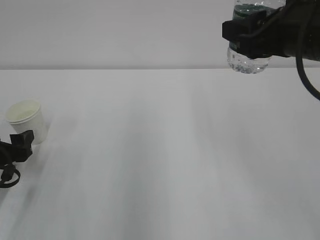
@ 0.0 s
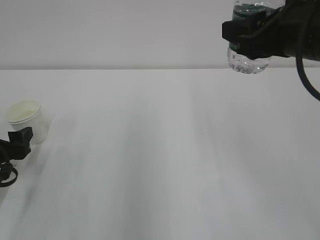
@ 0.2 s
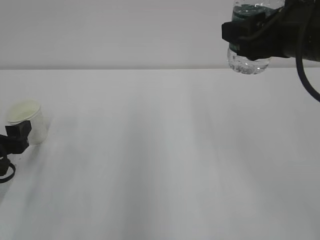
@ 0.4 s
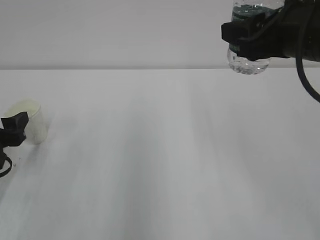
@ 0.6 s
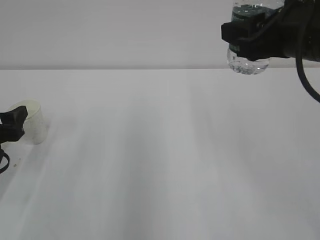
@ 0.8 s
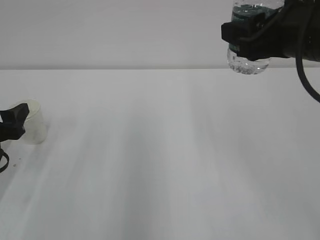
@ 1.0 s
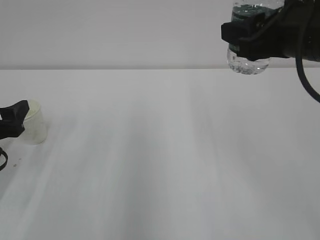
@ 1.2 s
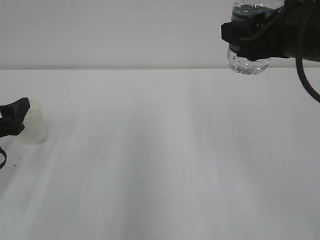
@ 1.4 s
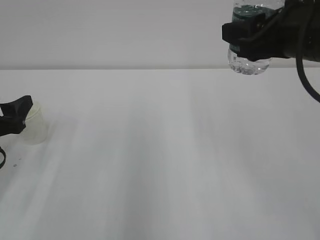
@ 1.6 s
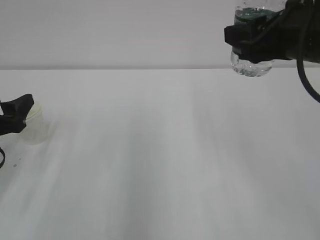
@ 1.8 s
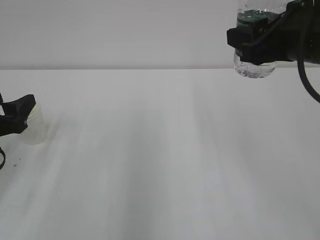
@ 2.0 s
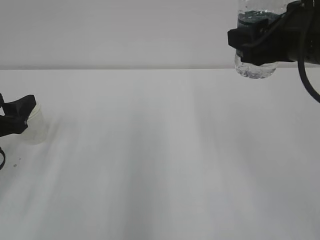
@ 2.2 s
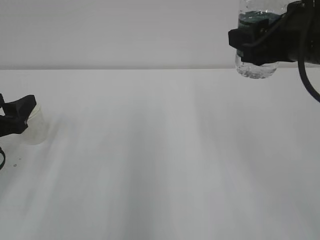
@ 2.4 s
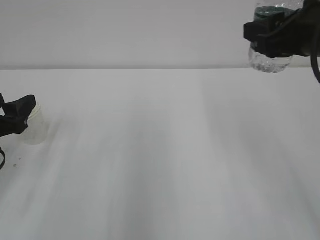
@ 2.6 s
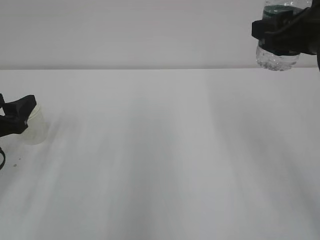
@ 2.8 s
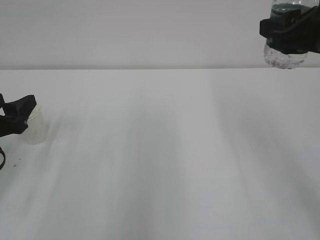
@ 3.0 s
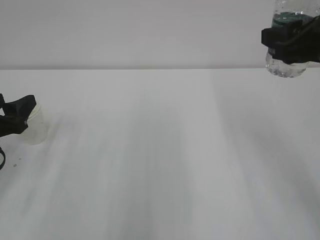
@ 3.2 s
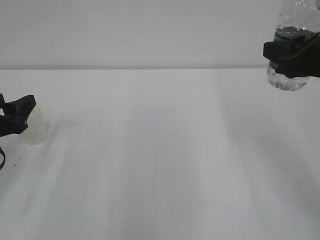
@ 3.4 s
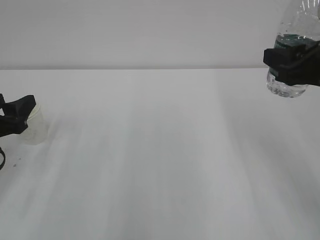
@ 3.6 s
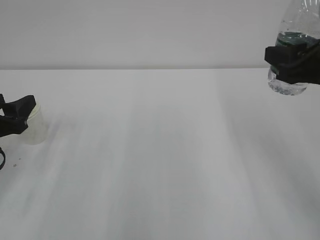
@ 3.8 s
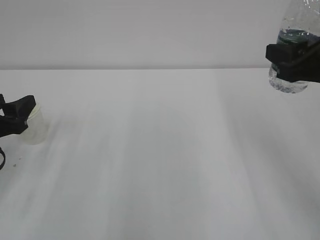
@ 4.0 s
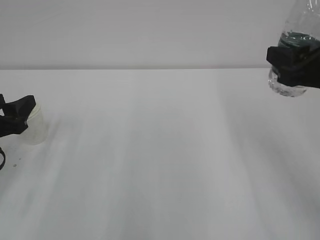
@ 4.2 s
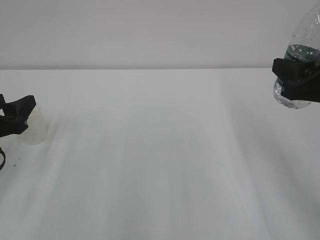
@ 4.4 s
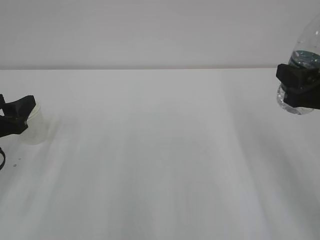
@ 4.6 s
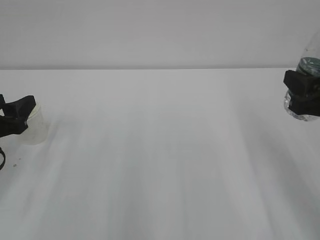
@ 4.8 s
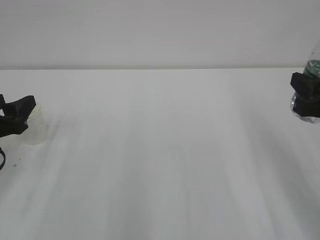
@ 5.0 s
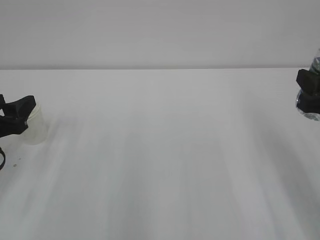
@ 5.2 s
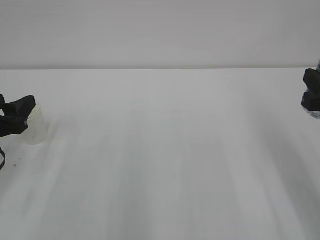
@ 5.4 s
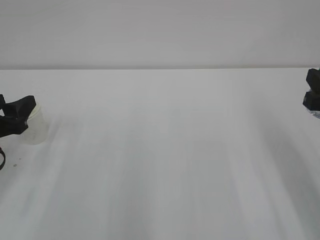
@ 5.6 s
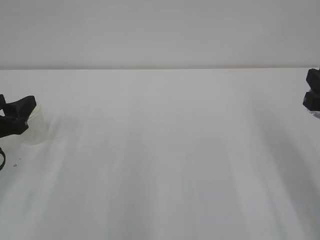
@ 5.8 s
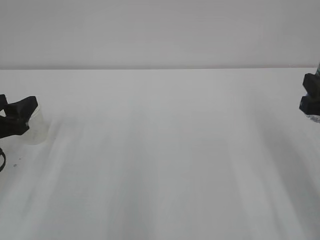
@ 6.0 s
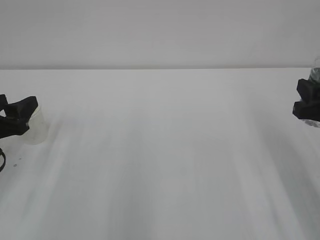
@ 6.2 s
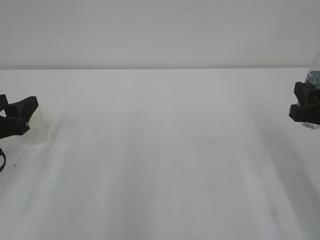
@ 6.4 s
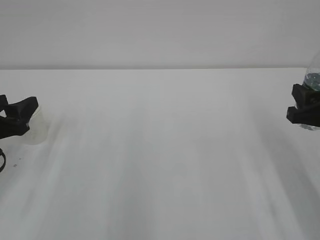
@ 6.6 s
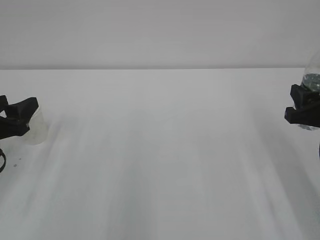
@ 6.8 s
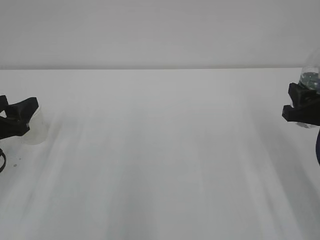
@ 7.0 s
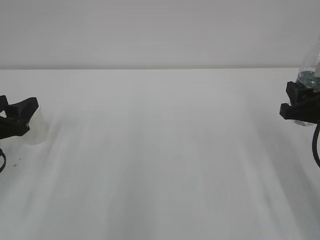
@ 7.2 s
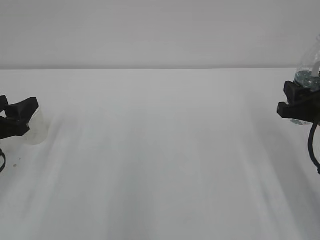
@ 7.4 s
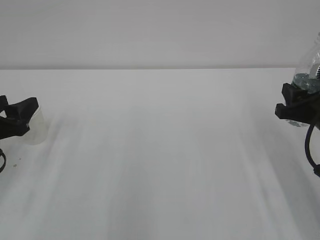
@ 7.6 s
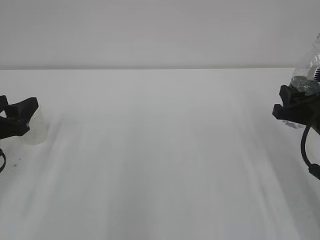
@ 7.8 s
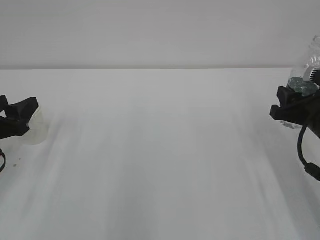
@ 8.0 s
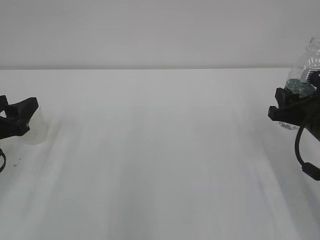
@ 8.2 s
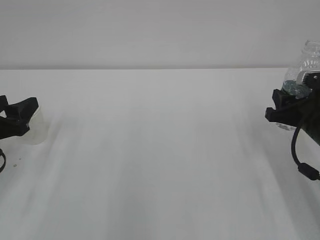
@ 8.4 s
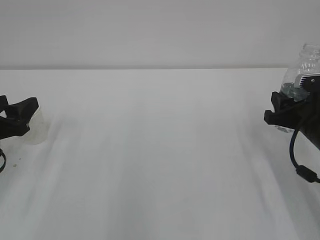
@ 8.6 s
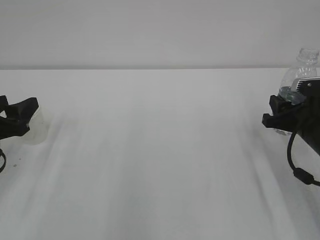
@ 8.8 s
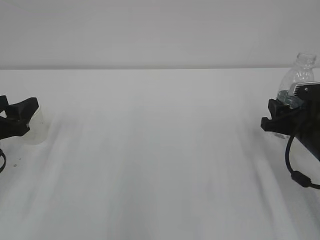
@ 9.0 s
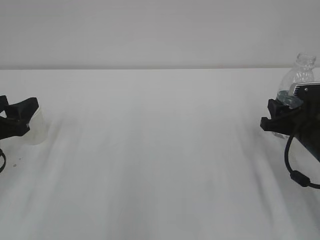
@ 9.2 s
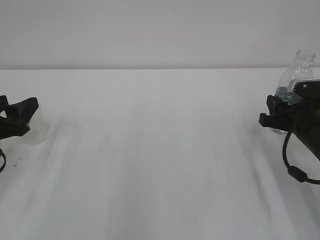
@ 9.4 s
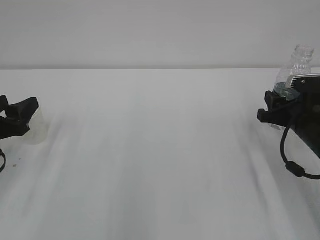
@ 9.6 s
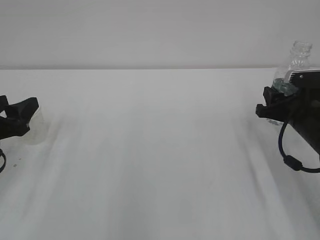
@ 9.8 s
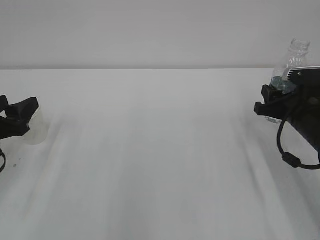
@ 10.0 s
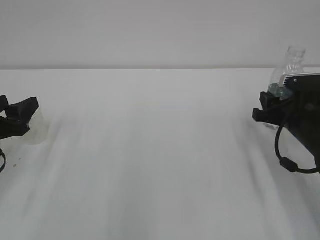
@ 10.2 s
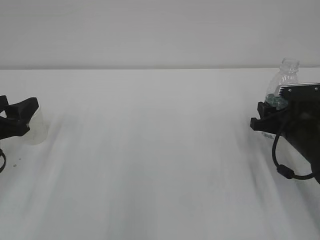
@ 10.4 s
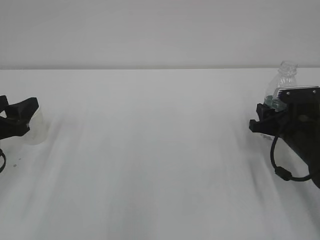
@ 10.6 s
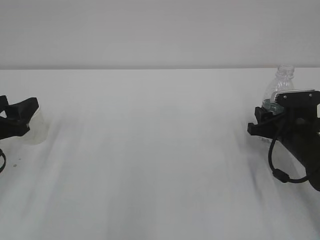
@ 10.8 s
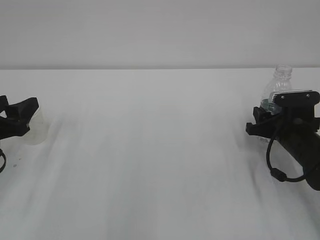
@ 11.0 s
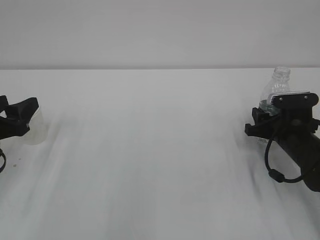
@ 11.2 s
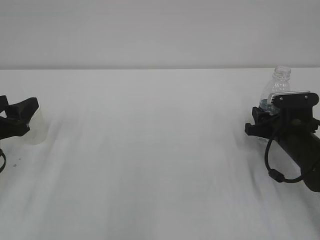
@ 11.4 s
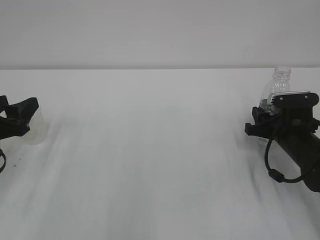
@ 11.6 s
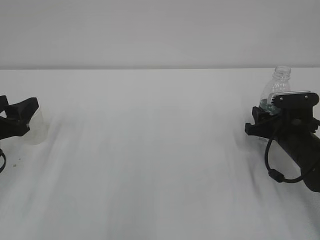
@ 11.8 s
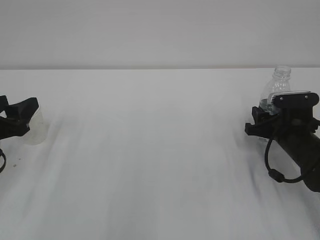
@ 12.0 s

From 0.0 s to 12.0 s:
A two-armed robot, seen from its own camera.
From 0.0 s to 1.6 s: The left gripper heads upward, covering some 5 cm.
From 1.6 s to 3.0 s: The grippers move only a little.
From 3.0 s to 4.4 s: The right gripper shifts roughly 5 cm downward.
From 4.4 s to 6.0 s: The grippers move only a little.
From 6.0 s to 7.6 s: The right gripper shifts about 5 cm downward.
From 7.6 s to 9.0 s: The right gripper changes place by approximately 5 cm.
From 9.0 s to 12.0 s: There are only small adjustments of the grippers.

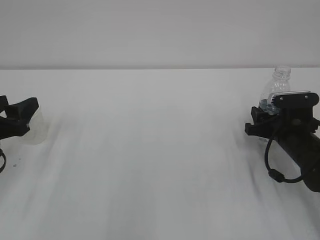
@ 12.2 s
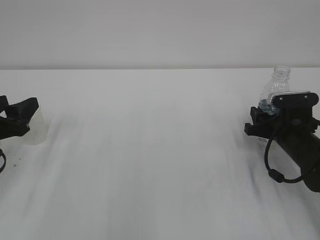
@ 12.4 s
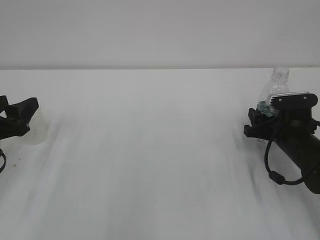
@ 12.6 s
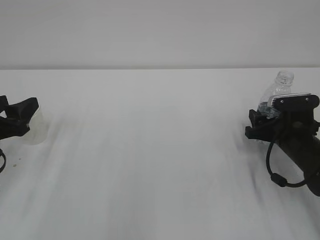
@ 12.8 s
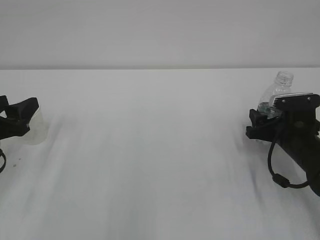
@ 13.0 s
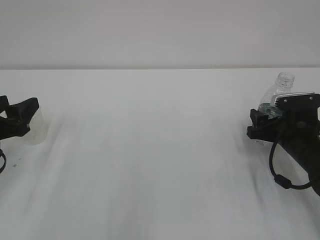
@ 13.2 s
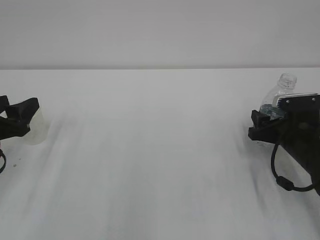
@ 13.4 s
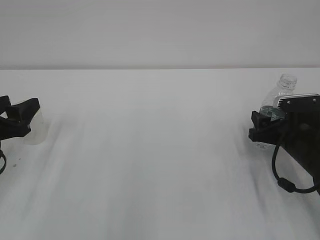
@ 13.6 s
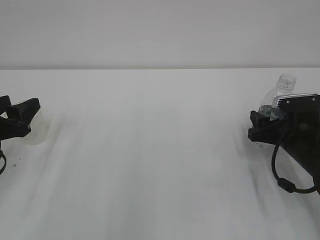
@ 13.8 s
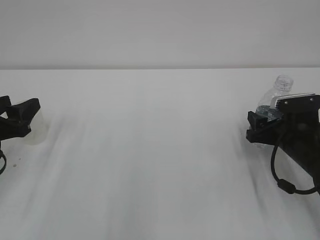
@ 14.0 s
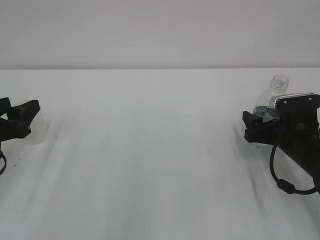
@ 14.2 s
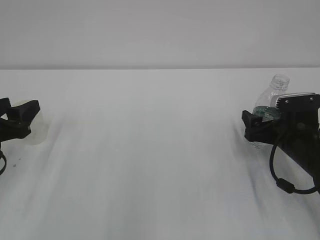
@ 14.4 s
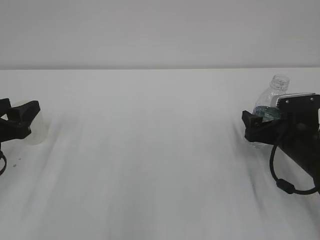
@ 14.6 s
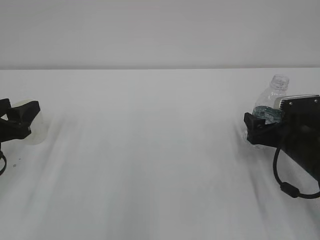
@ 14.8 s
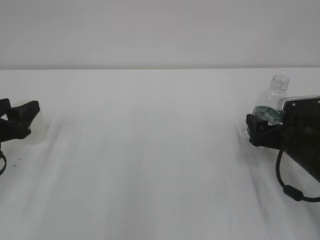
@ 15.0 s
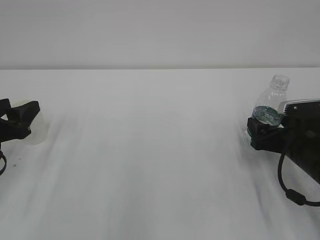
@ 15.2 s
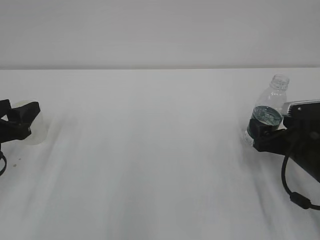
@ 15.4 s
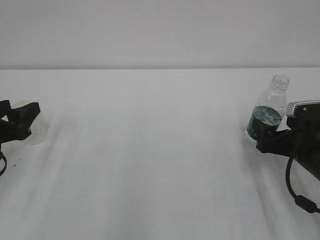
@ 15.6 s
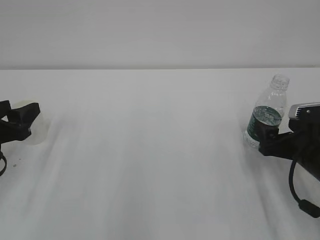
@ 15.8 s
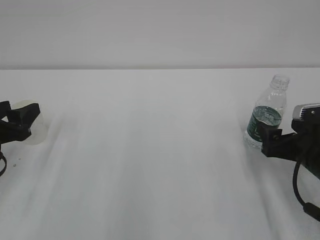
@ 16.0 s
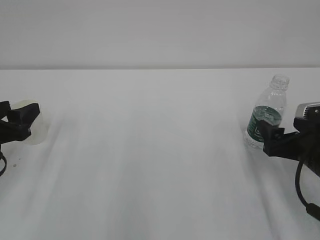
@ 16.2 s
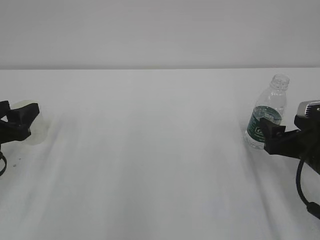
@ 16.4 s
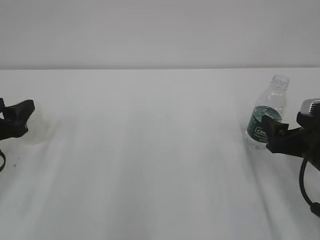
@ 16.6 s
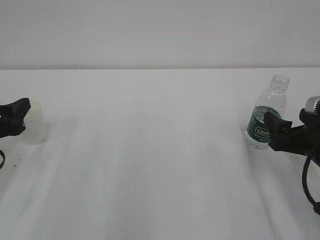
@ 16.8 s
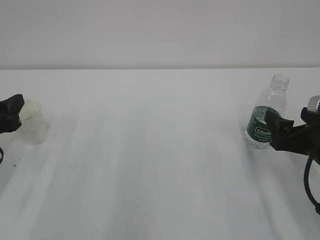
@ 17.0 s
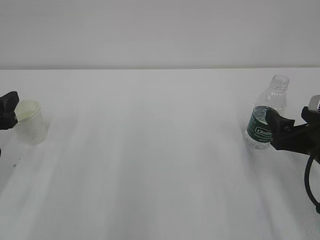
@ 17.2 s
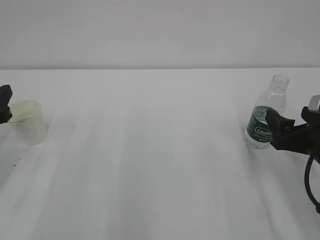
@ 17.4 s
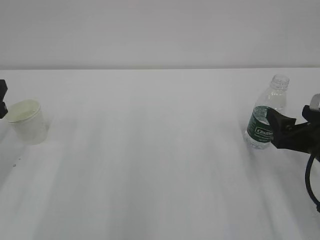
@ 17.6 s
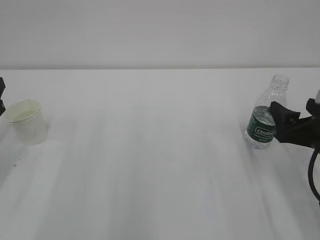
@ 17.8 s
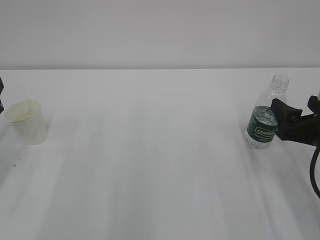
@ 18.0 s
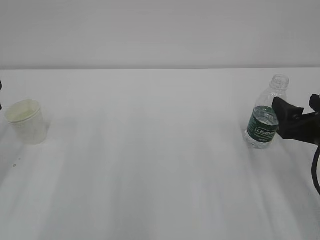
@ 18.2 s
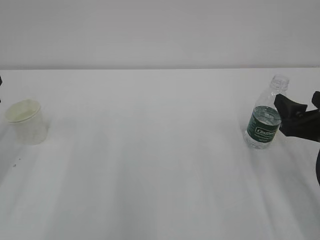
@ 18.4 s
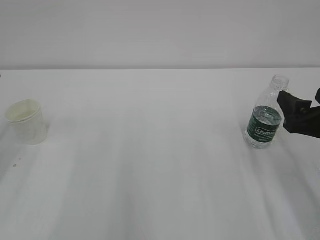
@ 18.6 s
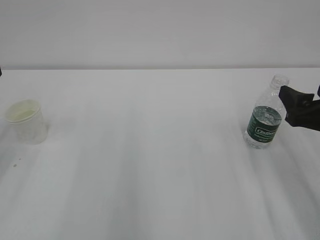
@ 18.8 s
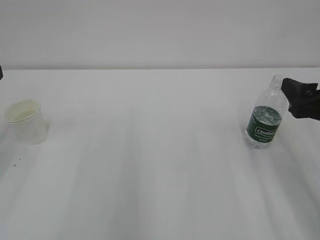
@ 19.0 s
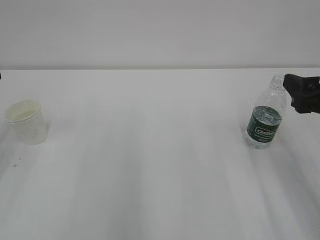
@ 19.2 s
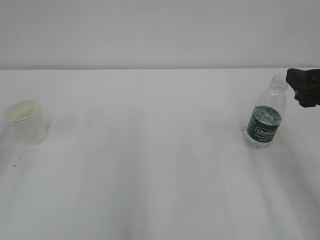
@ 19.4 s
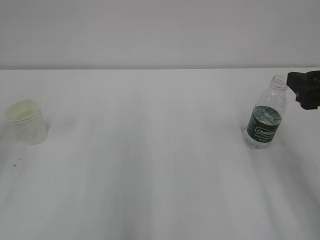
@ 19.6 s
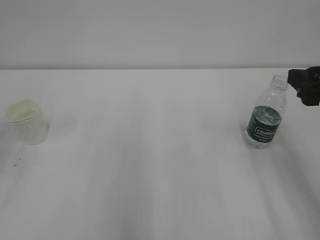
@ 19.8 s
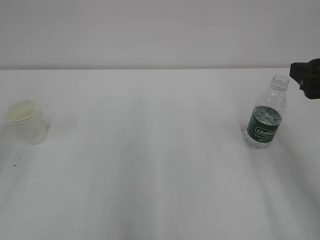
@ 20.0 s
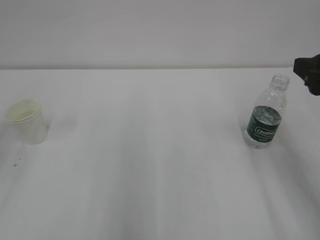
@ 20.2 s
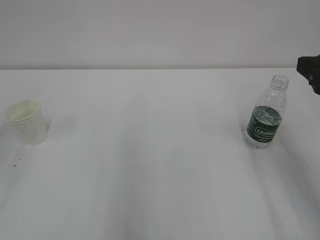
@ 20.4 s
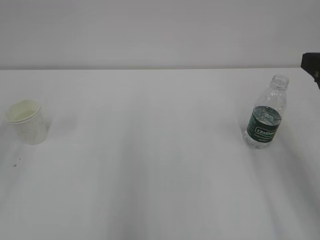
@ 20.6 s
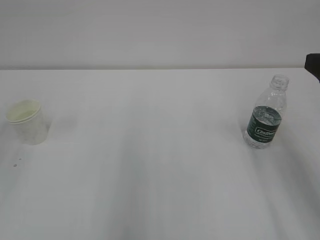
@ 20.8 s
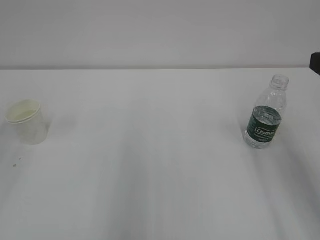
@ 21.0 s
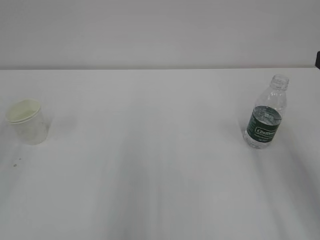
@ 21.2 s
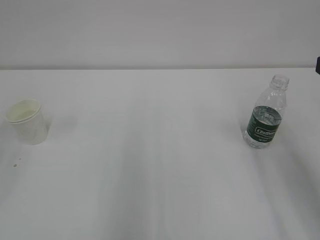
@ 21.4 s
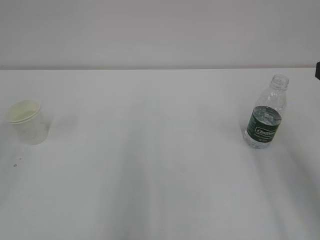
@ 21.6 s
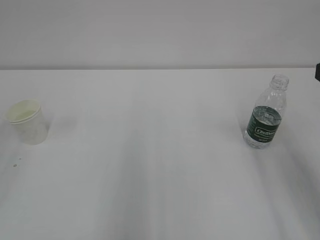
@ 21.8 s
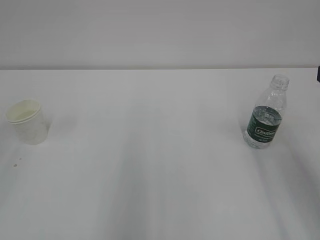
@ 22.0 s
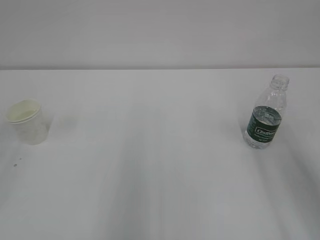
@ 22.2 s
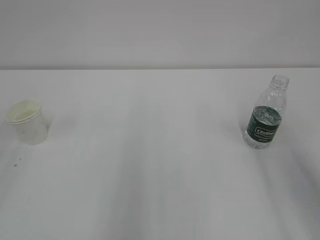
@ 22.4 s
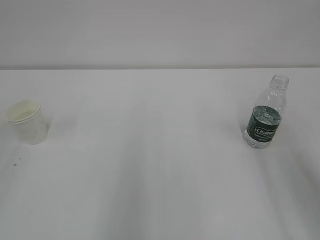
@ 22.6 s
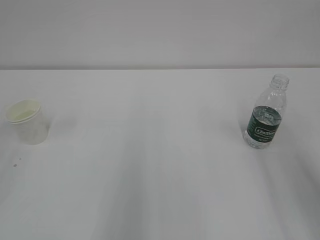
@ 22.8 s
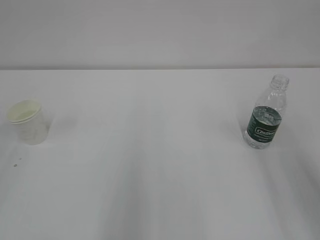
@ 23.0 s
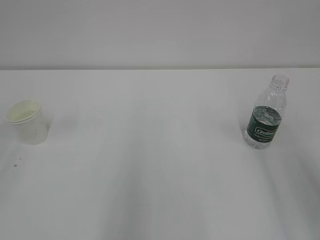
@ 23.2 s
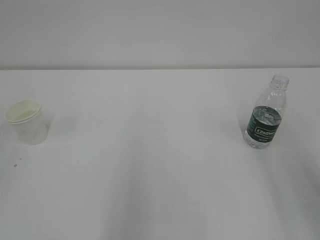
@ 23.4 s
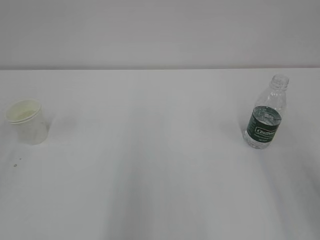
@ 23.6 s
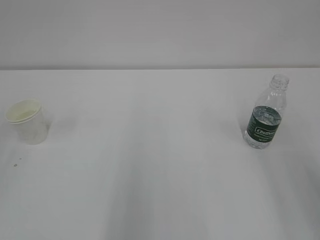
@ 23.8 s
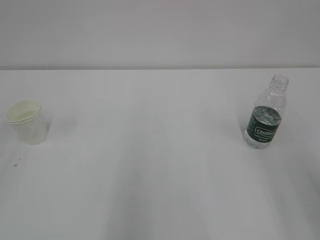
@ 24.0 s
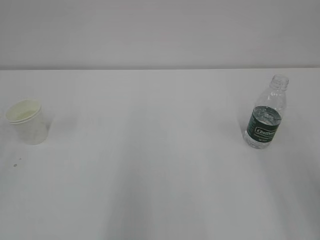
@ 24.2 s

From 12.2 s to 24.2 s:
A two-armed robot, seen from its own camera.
From 12.2 s to 13.8 s: There are only small adjustments of the grippers.
From 13.8 s to 15.2 s: The right gripper opens.
From 15.2 s to 16.6 s: The right gripper changes place by about 5 cm.
From 16.6 s to 18.2 s: The grippers make only small movements.
From 18.2 s to 19.8 s: The right gripper heads upward, covering roughly 10 cm.
From 19.8 s to 21.2 s: The right gripper moves about 5 cm.
